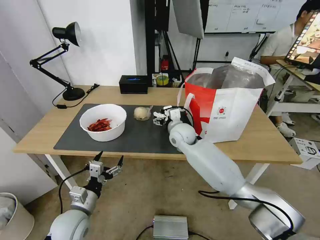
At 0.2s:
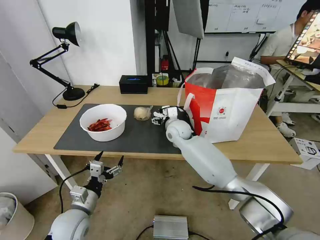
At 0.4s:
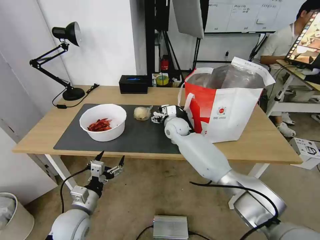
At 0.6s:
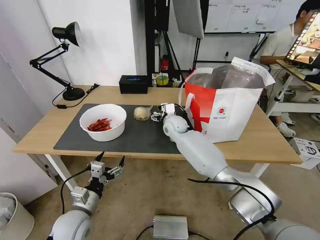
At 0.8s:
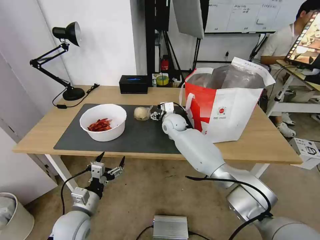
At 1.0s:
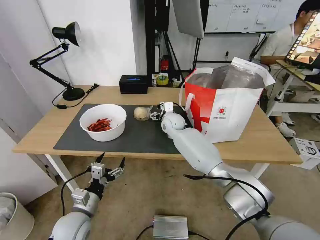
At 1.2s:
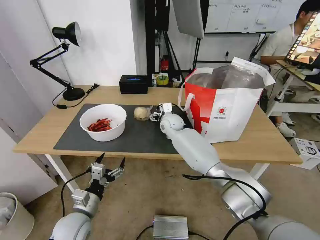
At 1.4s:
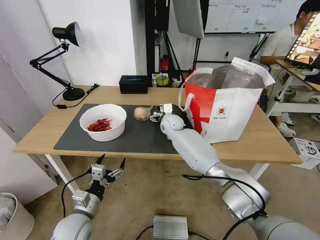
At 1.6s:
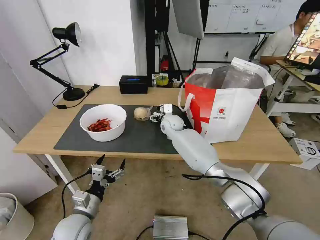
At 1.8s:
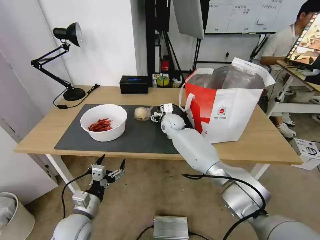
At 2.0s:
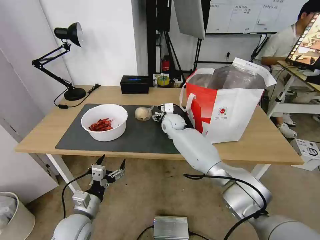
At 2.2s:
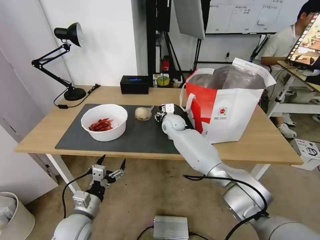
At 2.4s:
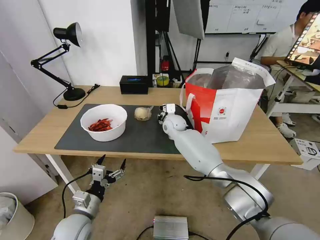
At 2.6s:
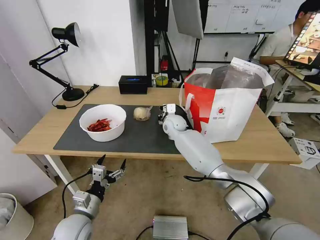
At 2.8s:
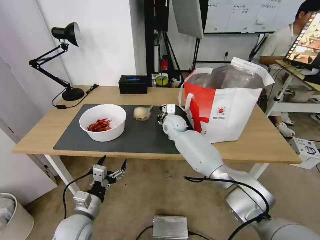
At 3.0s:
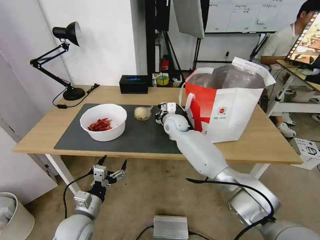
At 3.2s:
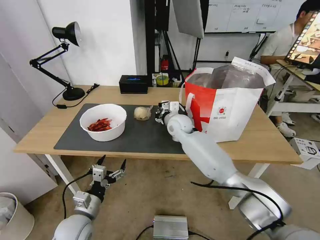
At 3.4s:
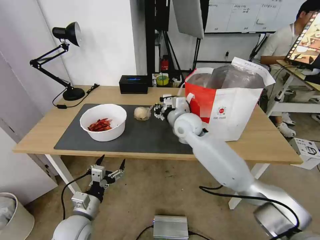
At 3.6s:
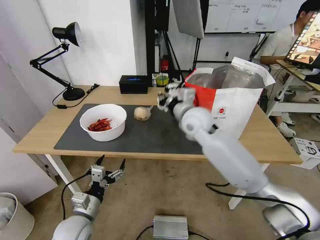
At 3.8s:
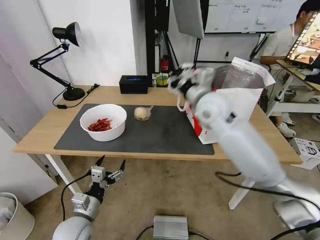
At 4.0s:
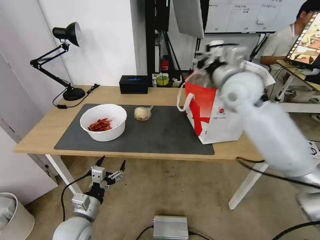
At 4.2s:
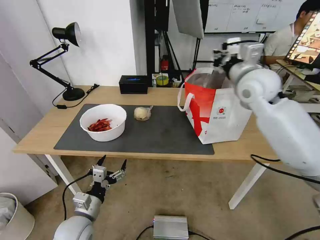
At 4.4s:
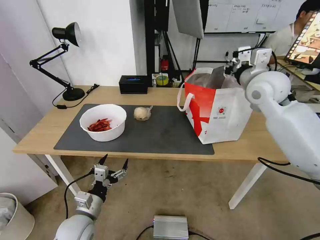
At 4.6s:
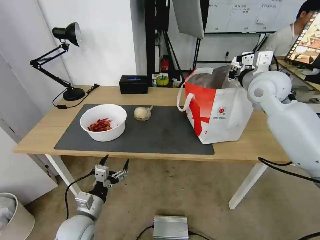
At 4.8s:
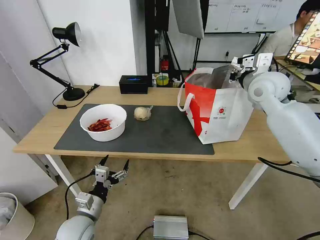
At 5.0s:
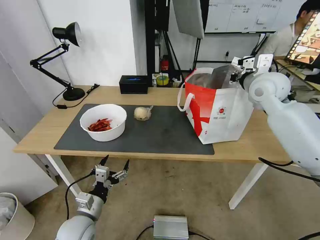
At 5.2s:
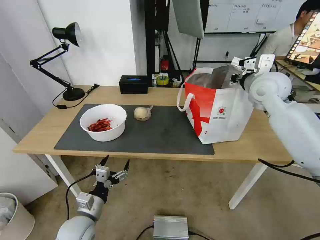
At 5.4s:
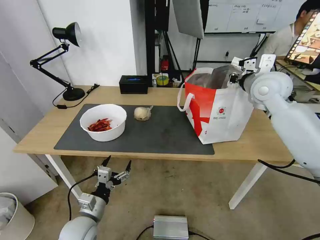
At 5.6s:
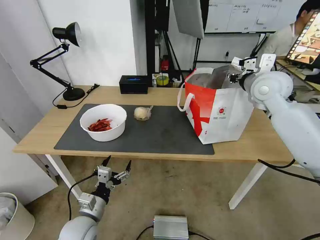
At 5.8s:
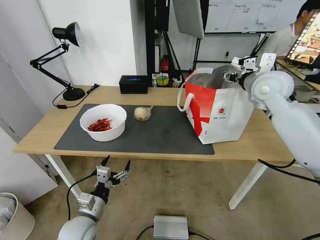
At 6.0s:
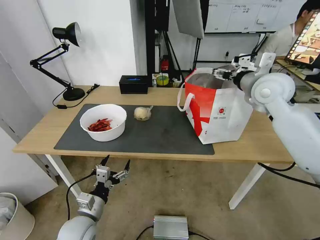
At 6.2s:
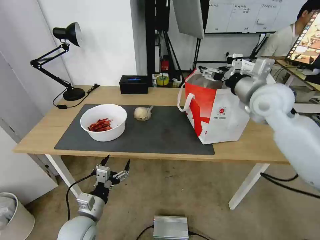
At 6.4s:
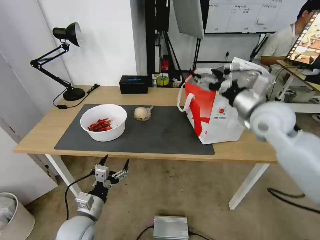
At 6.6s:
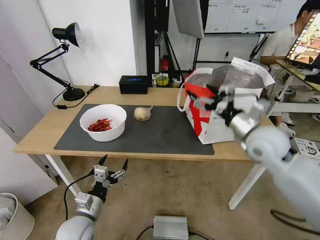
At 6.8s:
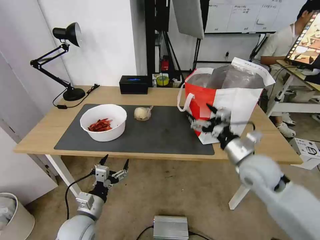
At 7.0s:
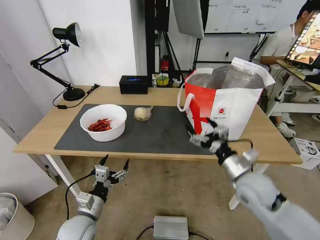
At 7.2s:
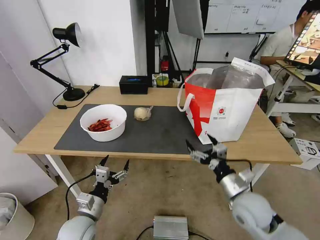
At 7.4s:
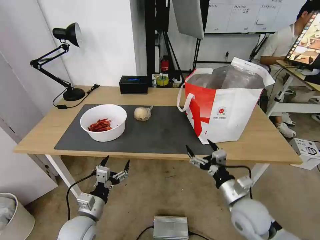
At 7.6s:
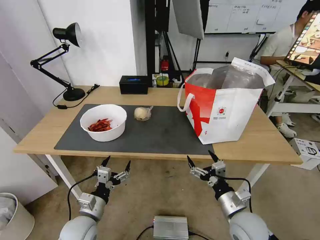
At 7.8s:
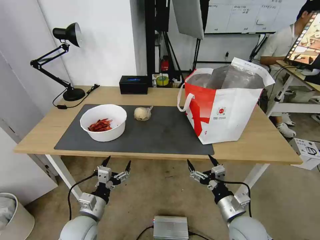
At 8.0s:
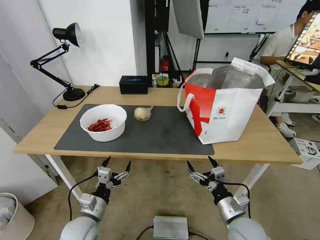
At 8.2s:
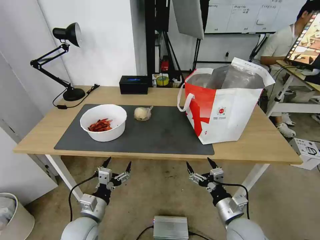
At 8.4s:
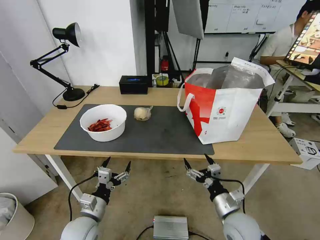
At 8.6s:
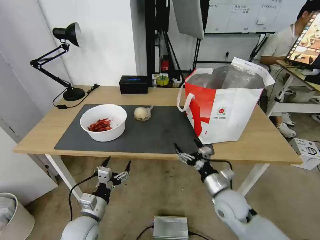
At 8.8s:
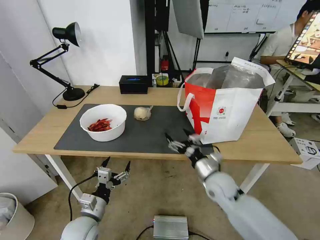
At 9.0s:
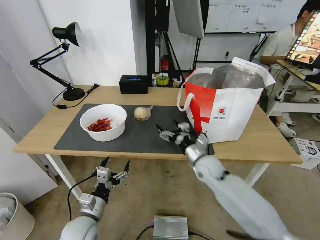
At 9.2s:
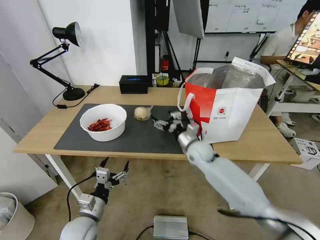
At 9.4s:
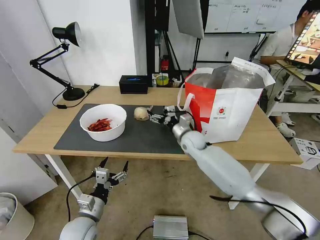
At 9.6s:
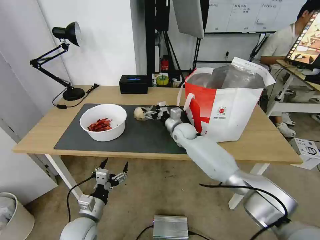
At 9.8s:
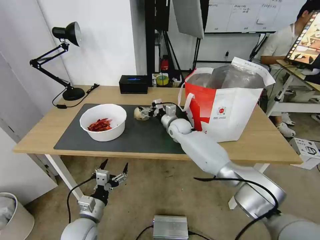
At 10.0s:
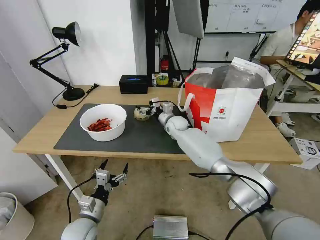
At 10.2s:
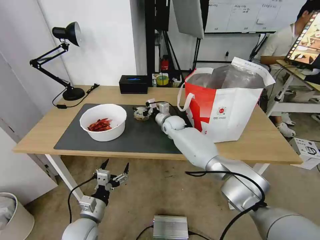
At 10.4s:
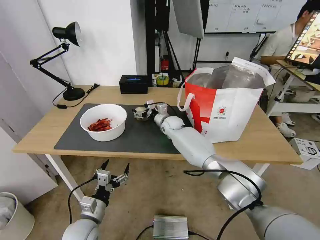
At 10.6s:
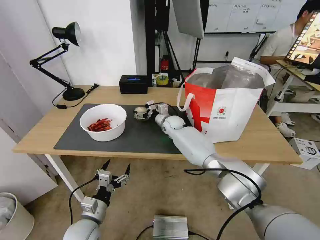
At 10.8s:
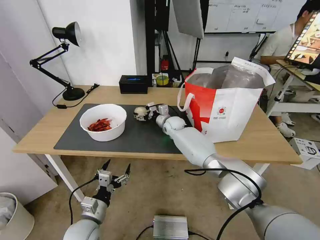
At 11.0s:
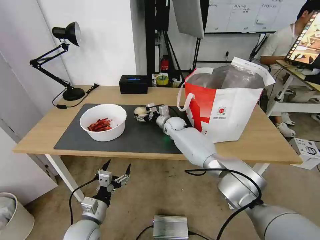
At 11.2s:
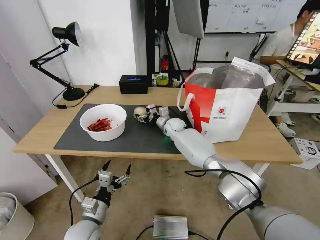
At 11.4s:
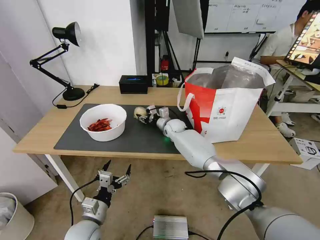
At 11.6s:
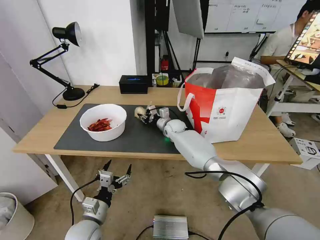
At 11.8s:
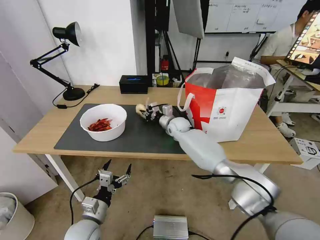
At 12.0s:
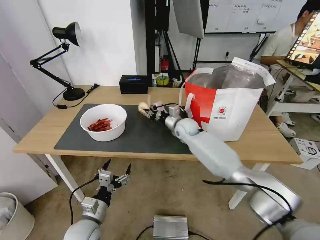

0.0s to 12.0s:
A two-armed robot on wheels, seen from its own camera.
Task of the whole recording: Pick up the trash from the table and place it into the takeout bag.
0.0s to 1.6s: The right gripper shifts approximately 10 cm forward.
1.6s to 3.0s: The right gripper closes its fingers.
3.0s to 4.4s: The right gripper moves upward and to the right, some 30 cm.
4.4s to 6.0s: The right gripper opens up.
6.0s to 7.6s: The right gripper is displaced downward and backward by some 40 cm.
7.6s to 9.0s: The right gripper shifts some 20 cm forward and to the left.
9.0s to 10.4s: The right gripper shifts roughly 25 cm forward and to the left.
10.4s to 12.0s: The right gripper ends up roughly 5 cm from where it was, and closes.

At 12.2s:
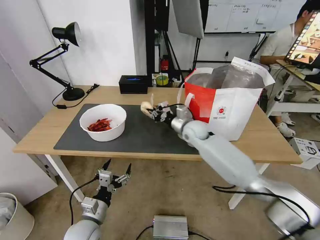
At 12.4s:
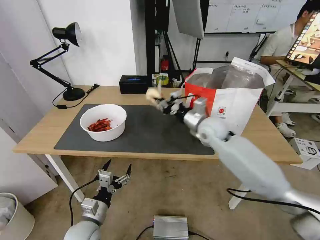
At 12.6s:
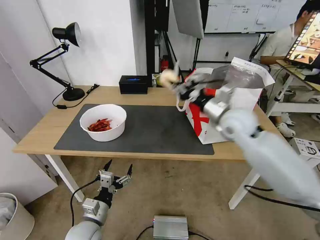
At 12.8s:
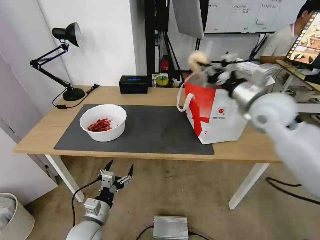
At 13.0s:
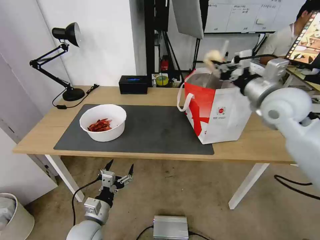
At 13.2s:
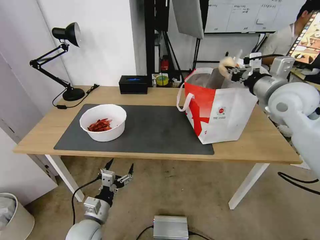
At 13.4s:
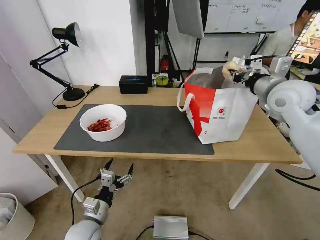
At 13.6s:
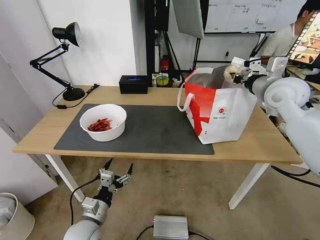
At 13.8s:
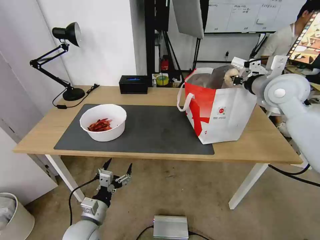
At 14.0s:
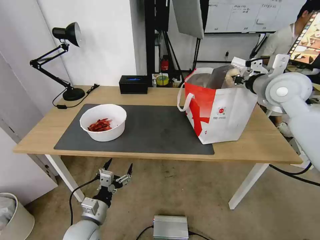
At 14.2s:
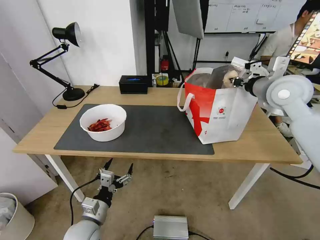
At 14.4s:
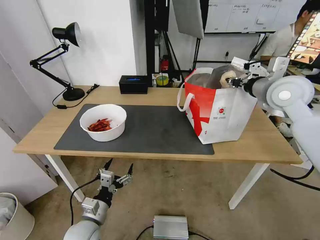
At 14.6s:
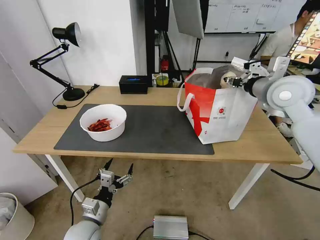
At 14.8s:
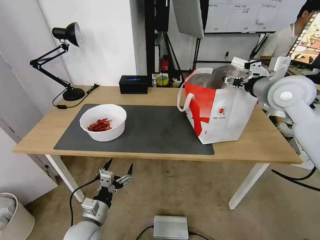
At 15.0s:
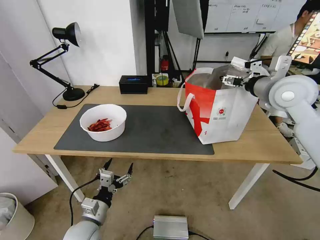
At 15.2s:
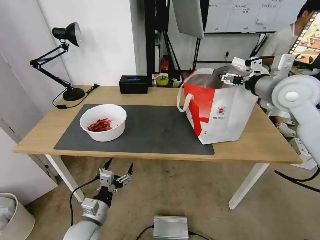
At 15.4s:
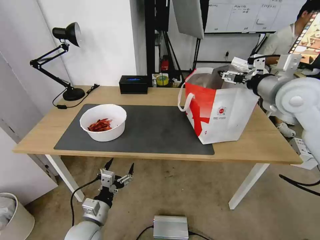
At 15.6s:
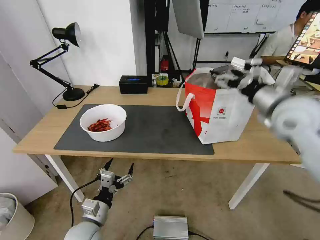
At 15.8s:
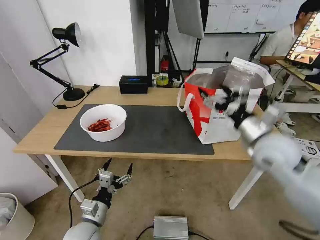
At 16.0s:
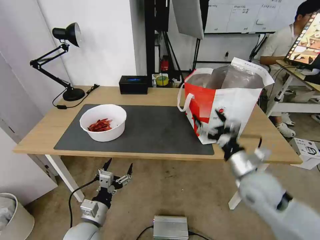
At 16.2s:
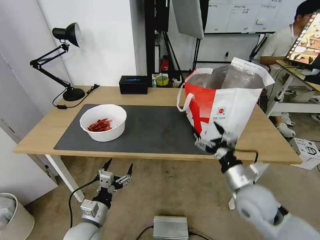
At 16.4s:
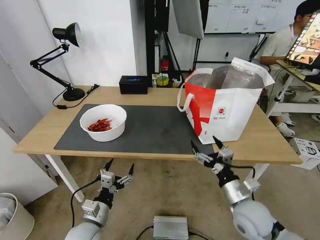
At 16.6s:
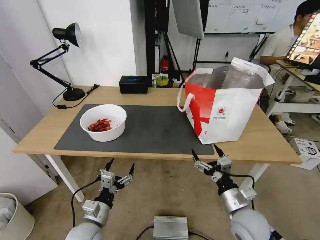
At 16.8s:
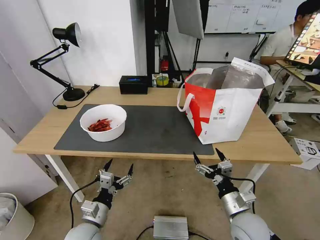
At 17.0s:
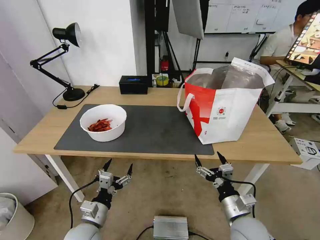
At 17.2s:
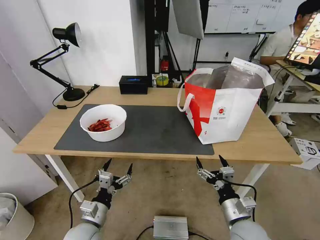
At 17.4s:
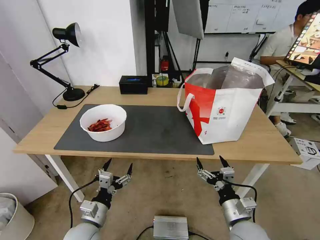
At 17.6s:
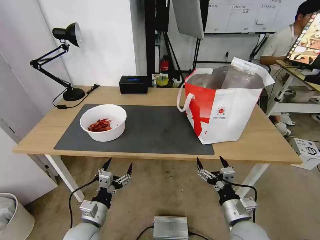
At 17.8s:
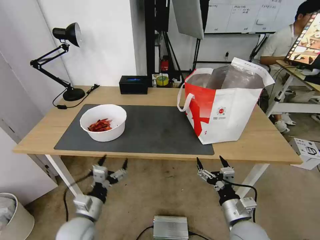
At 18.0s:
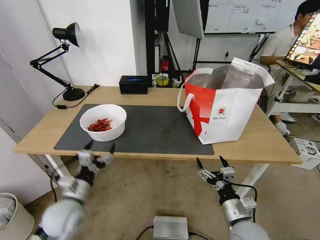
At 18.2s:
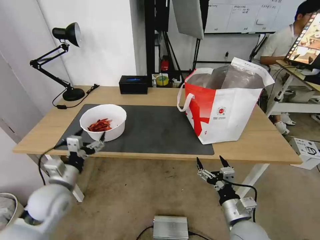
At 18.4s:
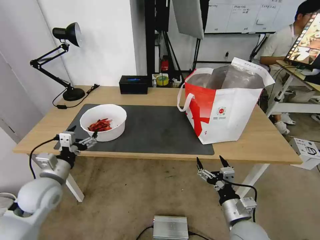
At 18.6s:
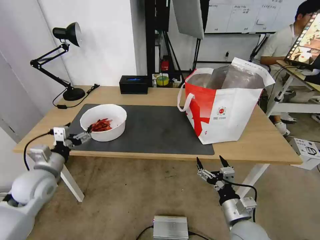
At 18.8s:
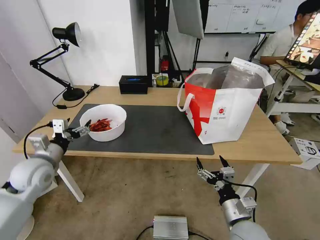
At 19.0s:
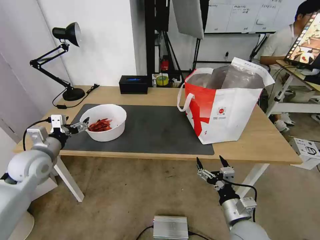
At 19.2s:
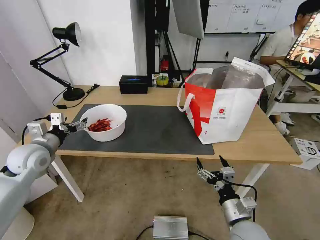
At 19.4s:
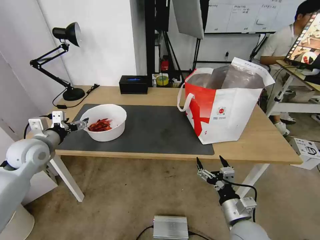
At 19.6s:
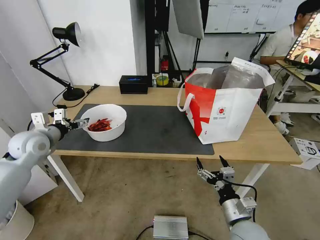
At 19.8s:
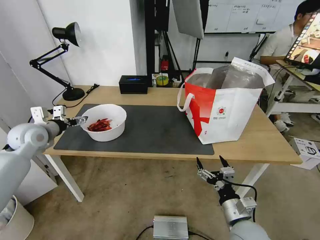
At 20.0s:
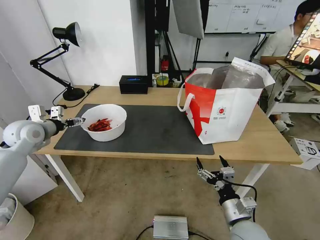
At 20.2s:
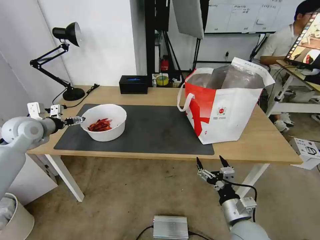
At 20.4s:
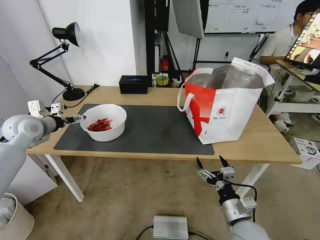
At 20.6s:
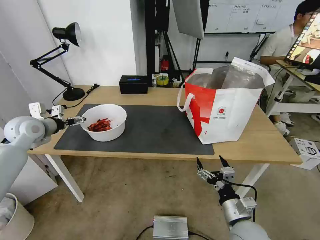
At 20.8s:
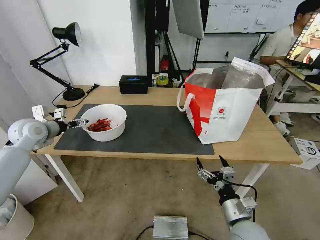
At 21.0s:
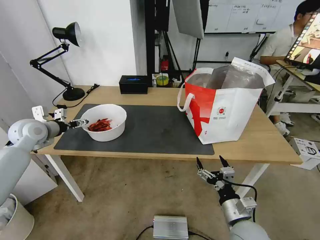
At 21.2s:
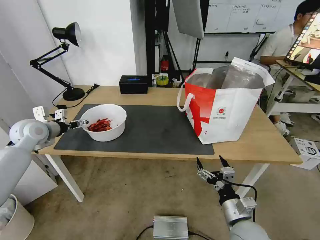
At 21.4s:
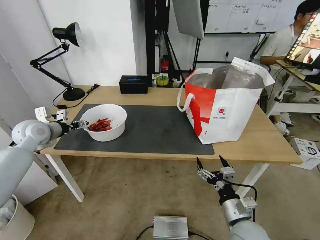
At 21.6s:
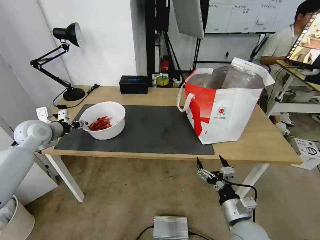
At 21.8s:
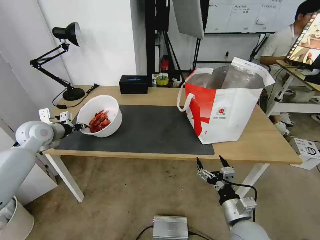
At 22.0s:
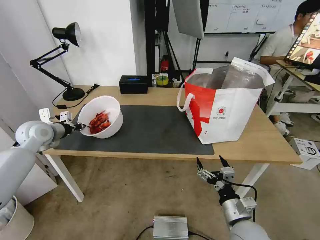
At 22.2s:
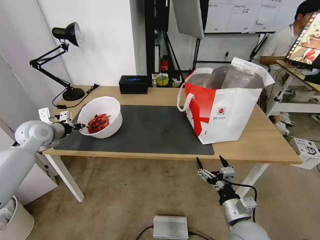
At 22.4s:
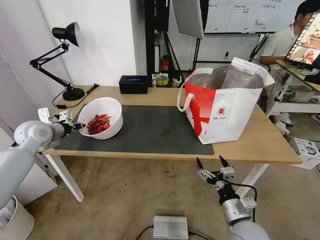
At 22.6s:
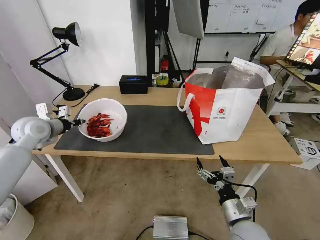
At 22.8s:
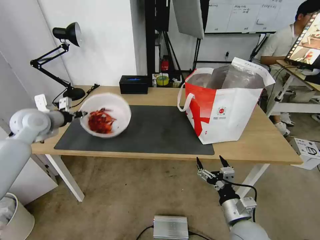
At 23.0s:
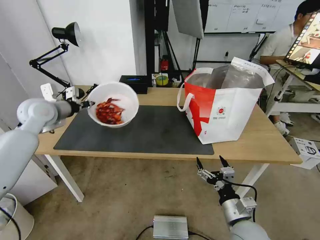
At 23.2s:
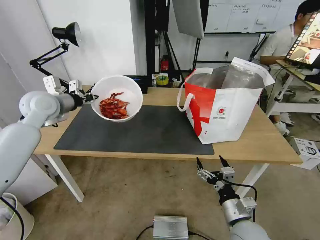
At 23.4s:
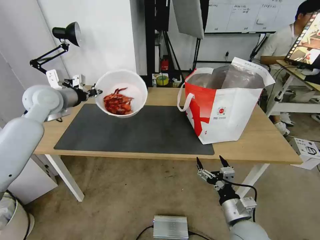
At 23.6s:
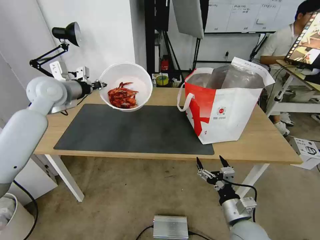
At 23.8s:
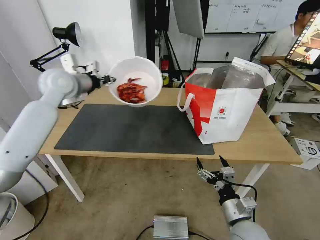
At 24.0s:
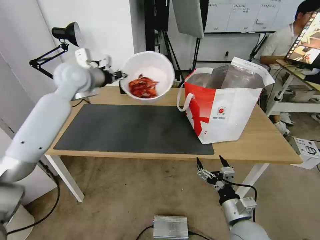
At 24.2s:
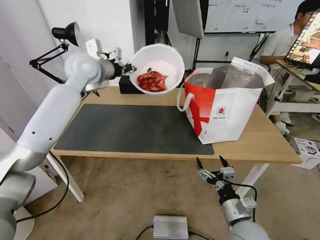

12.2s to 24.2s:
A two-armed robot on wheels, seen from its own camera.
Task of the whole recording: Pick up the trash from the table and place it into the takeout bag.
12.2s to 13.8s: The right gripper travels upward and to the right by roughly 30 cm.
13.8s to 15.2s: The right gripper opens up.
15.2s to 16.6s: The right gripper goes approximately 40 cm downward and backward.
16.6s to 18.2s: The left gripper goes about 15 cm upward, to the left and forward.
18.2s to 19.8s: The left gripper moves forward, to the left and upward, some 20 cm.
19.8s to 21.2s: The grippers move only a little.
21.2s to 22.6s: The left gripper closes.
22.6s to 24.2s: The left gripper is displaced to the right, upward and forward by some 25 cm.
